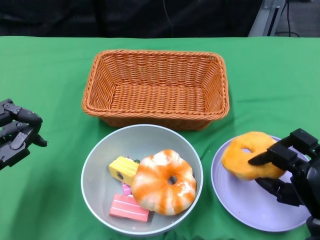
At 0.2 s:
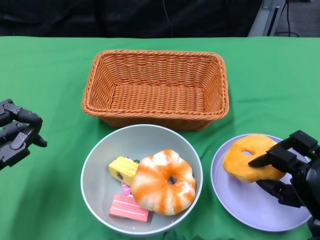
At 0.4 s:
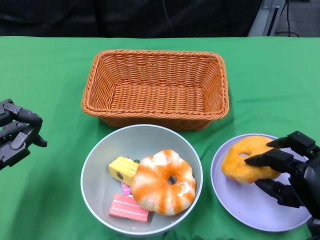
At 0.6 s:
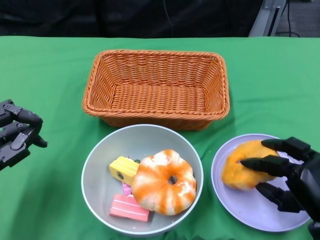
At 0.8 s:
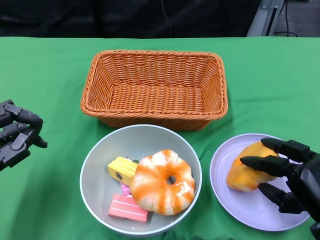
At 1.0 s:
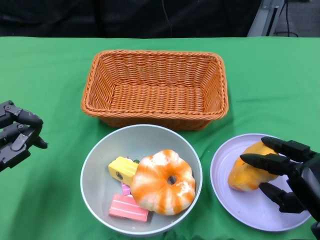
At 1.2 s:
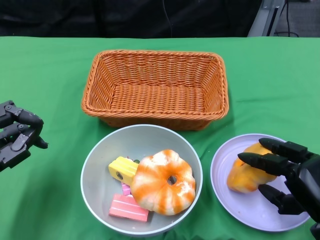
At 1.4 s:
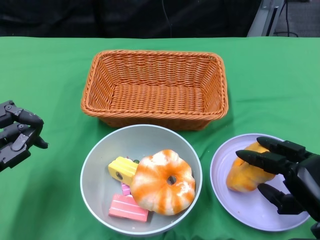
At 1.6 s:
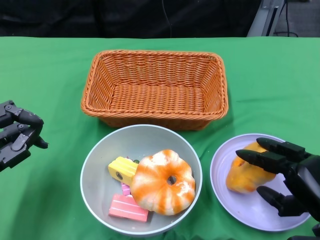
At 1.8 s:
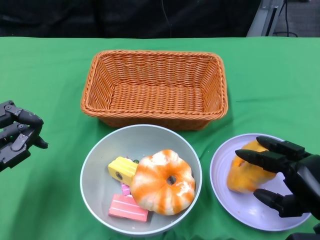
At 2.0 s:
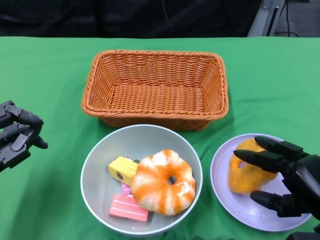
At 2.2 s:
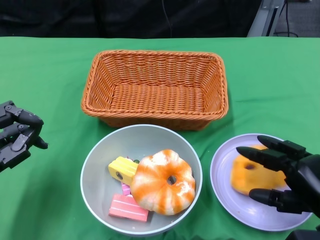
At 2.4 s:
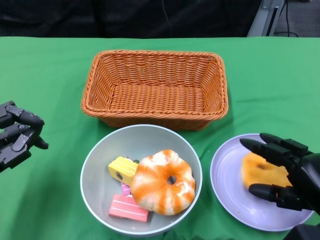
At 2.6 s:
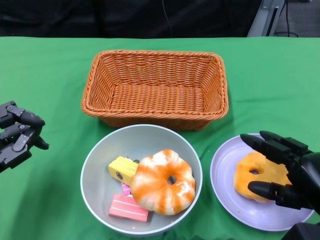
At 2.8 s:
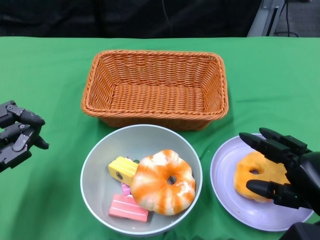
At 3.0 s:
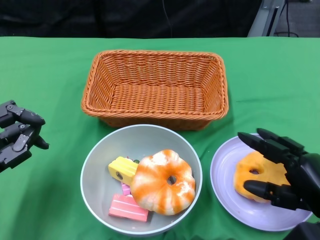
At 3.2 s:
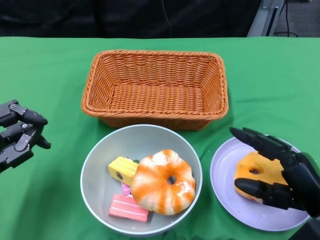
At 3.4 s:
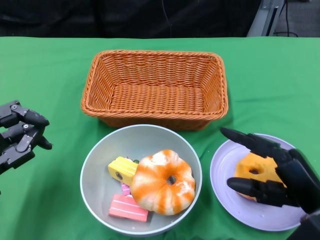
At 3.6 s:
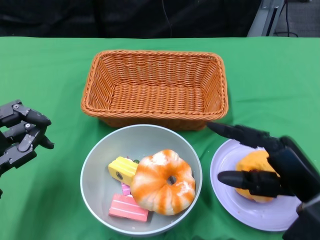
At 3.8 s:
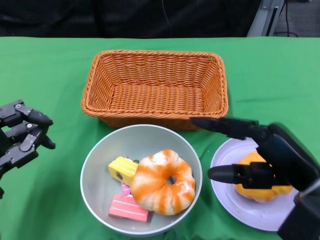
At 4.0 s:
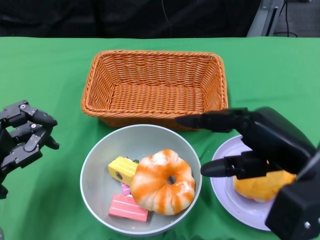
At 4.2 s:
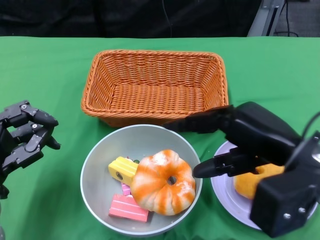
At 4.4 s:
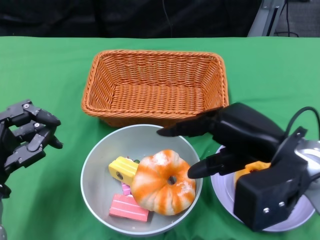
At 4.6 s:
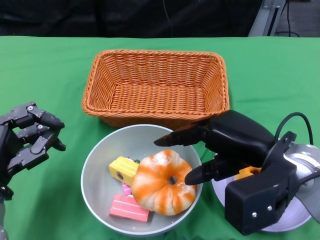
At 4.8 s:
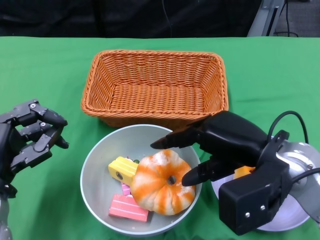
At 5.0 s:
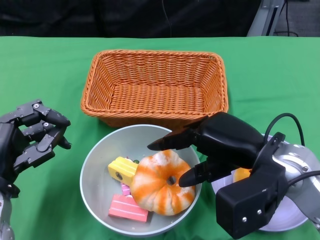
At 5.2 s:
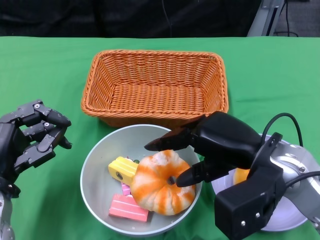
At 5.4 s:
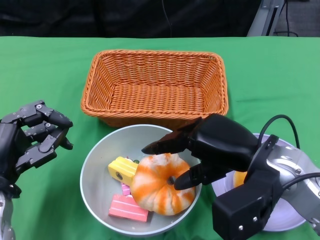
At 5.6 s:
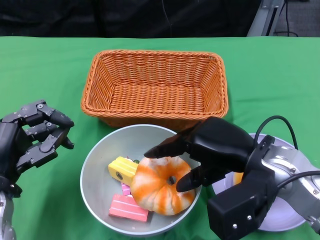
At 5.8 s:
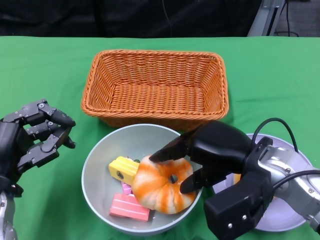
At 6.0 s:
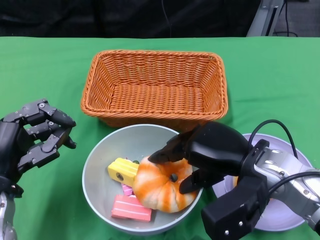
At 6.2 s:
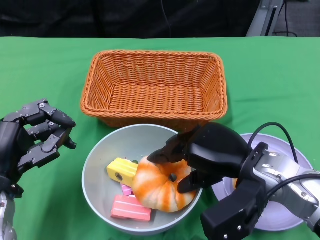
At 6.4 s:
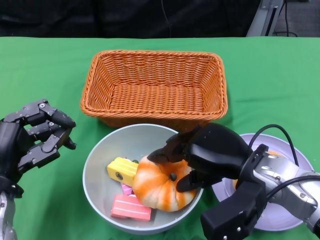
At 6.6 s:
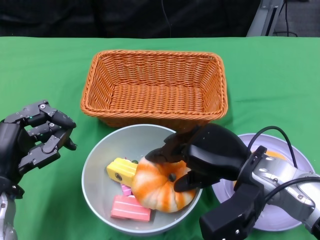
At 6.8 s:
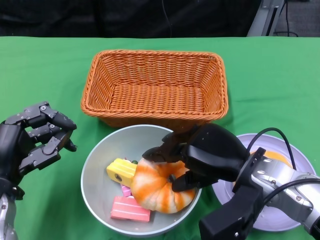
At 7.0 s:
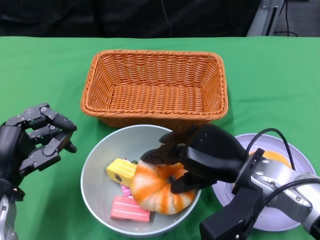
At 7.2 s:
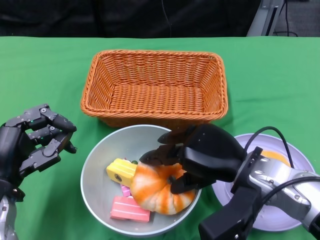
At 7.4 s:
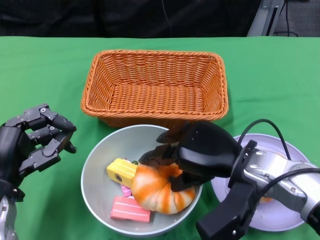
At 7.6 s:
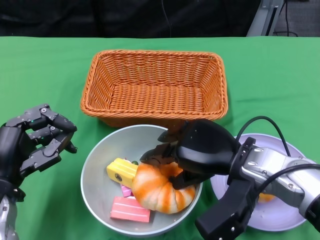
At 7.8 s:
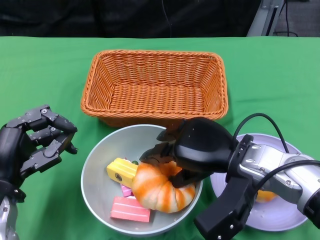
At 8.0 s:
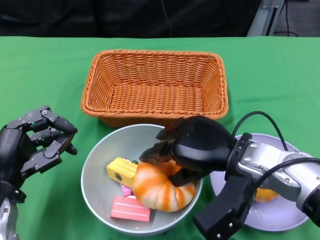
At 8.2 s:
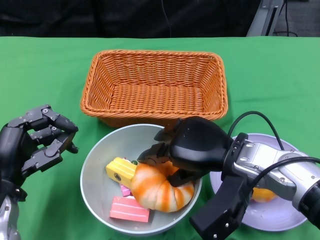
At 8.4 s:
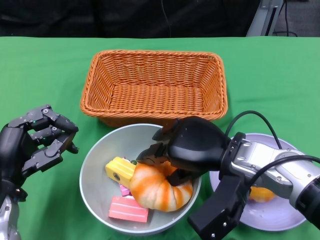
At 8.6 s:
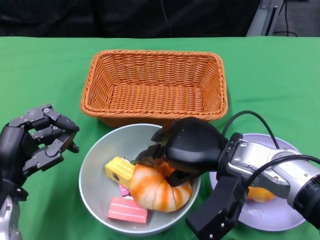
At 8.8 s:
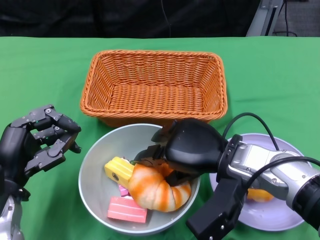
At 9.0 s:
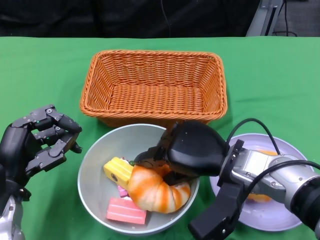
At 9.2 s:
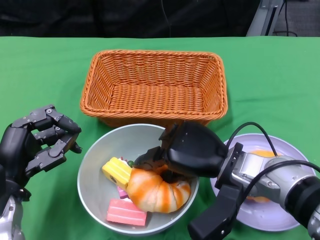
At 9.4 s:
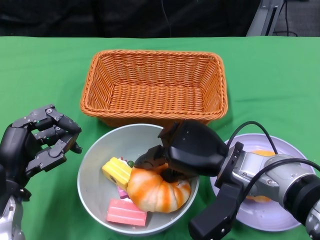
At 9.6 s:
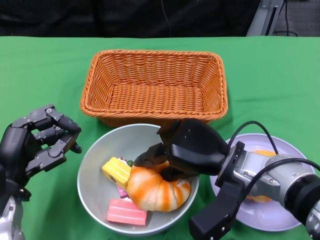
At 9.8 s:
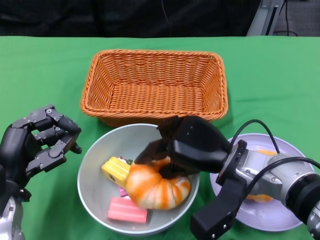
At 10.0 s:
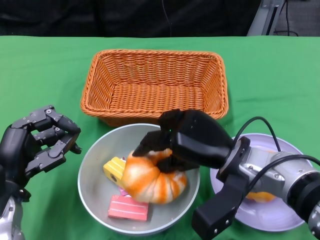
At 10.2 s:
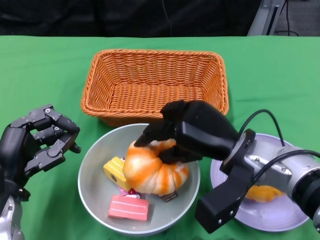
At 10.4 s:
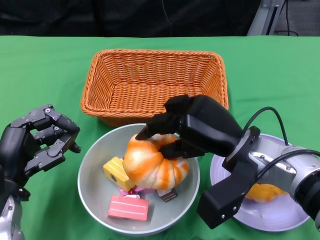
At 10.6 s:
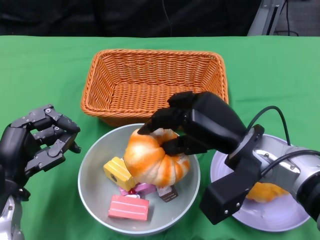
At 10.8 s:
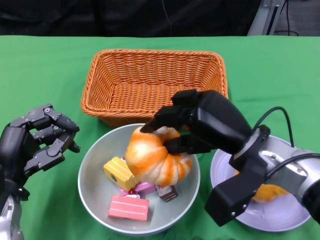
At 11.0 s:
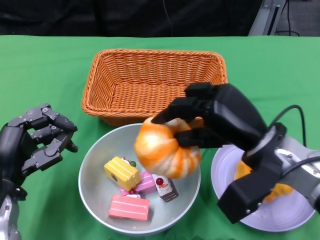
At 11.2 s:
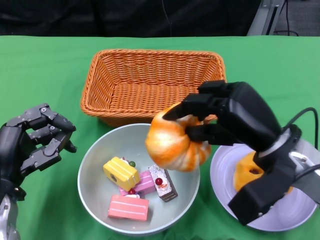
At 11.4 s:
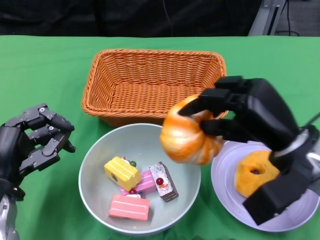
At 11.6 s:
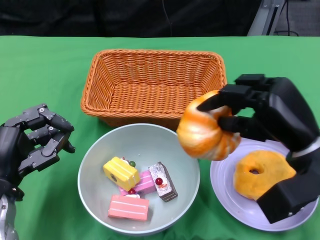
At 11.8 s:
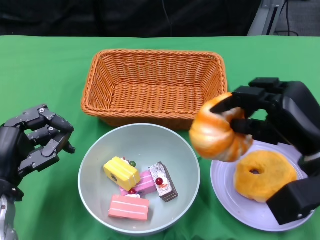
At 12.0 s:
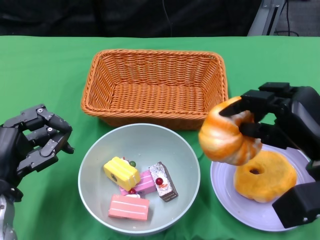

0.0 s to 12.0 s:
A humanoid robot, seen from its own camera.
Step, 0.0 to 2.6 s: Pick up the bread with the right gripper and place it on the plate.
1.6 to 3.0 s: The hands make only small movements.
3.0 to 4.4 s: The right hand is displaced upward and to the left by approximately 15 cm.
4.4 to 6.0 s: The right hand moves approximately 5 cm.
6.0 to 9.0 s: There are only small adjustments of the hands.
10.4 to 12.0 s: The right hand moves to the right, roughly 10 cm.

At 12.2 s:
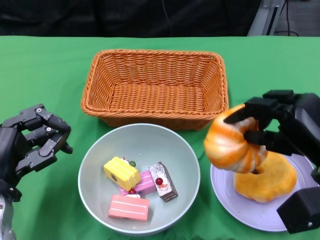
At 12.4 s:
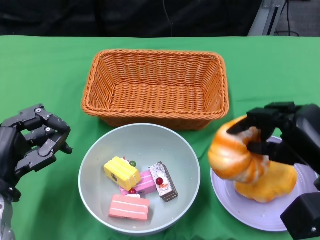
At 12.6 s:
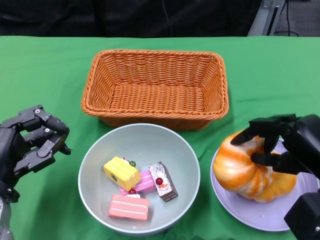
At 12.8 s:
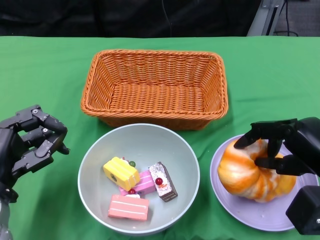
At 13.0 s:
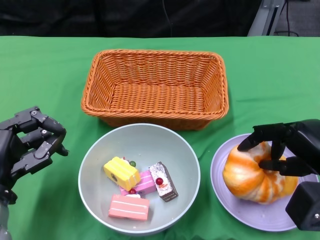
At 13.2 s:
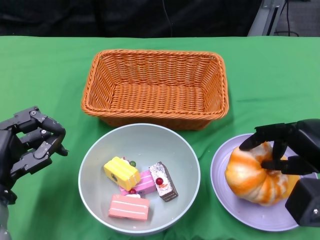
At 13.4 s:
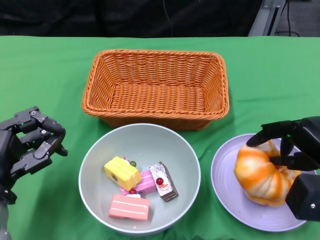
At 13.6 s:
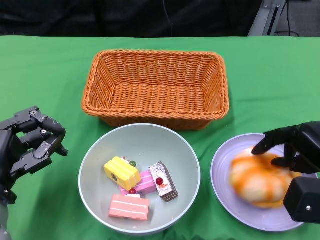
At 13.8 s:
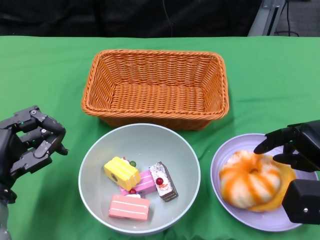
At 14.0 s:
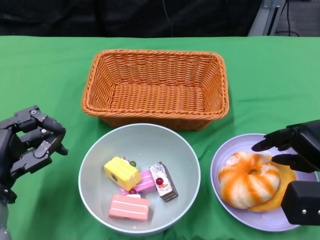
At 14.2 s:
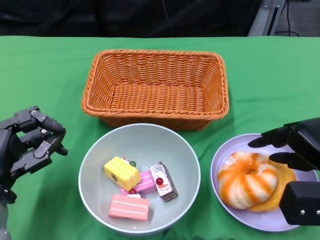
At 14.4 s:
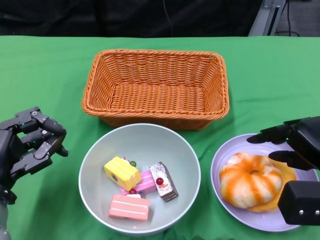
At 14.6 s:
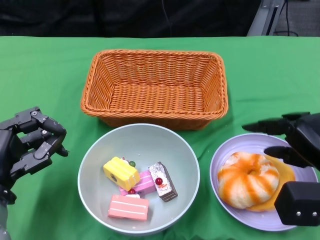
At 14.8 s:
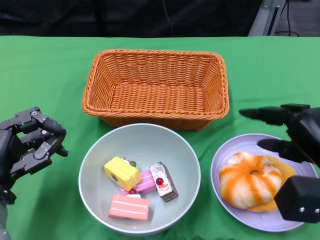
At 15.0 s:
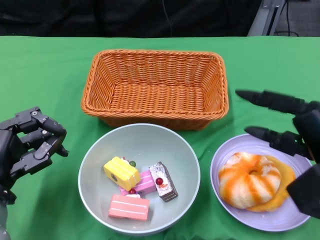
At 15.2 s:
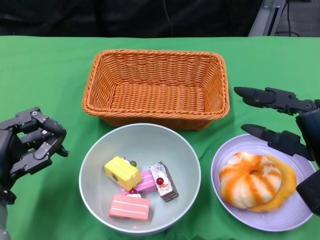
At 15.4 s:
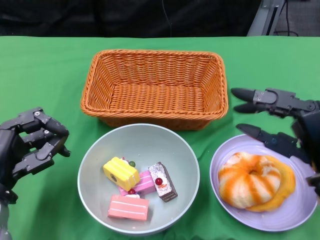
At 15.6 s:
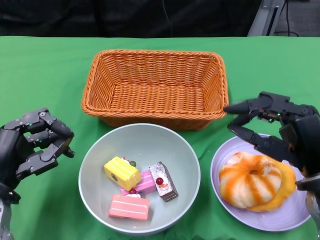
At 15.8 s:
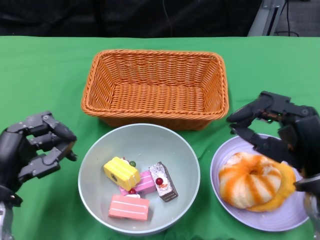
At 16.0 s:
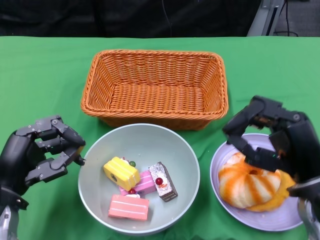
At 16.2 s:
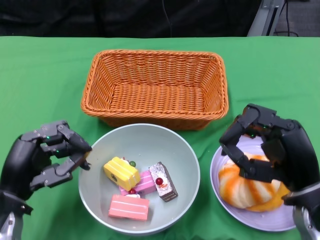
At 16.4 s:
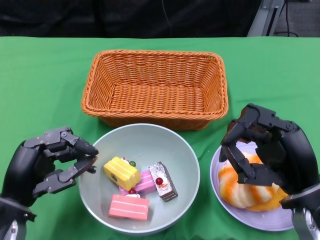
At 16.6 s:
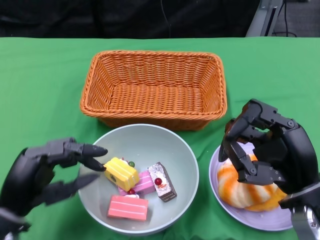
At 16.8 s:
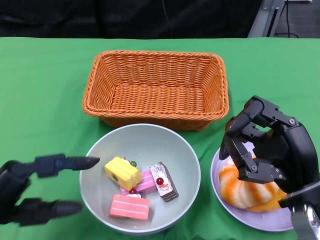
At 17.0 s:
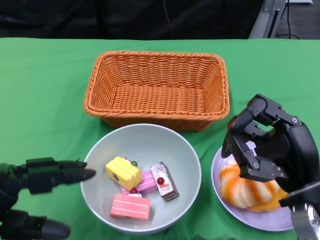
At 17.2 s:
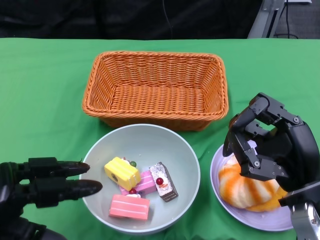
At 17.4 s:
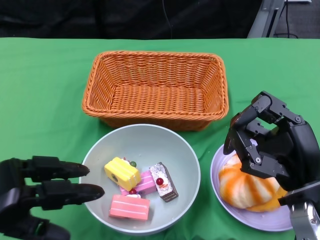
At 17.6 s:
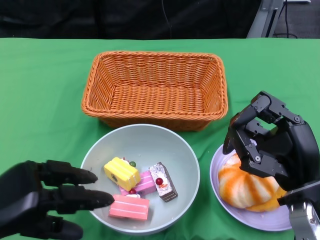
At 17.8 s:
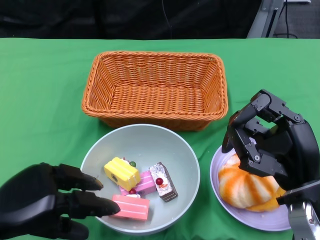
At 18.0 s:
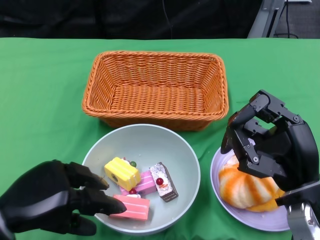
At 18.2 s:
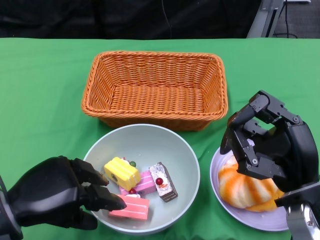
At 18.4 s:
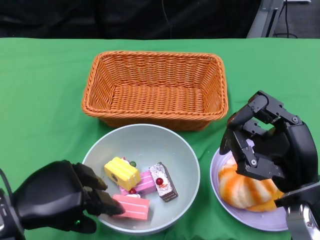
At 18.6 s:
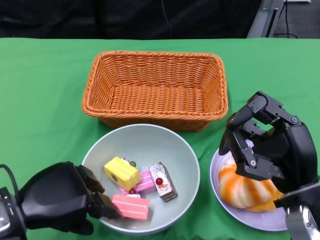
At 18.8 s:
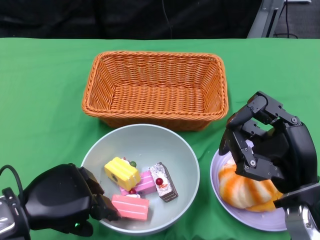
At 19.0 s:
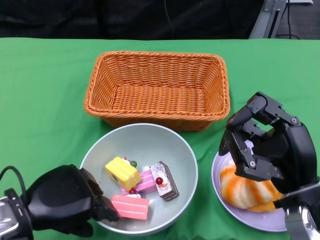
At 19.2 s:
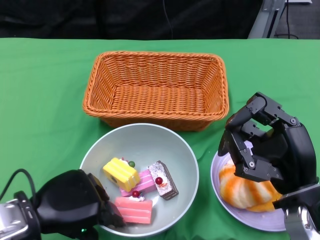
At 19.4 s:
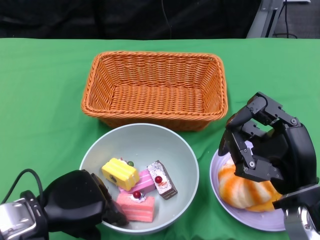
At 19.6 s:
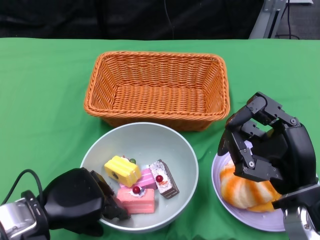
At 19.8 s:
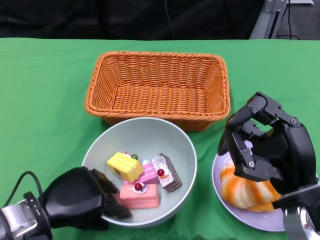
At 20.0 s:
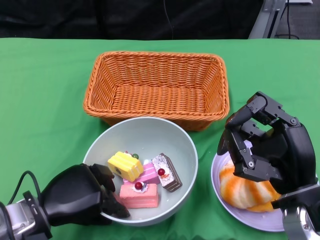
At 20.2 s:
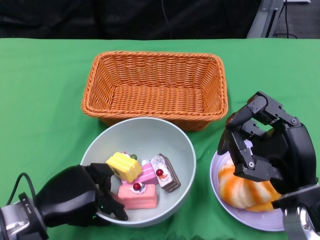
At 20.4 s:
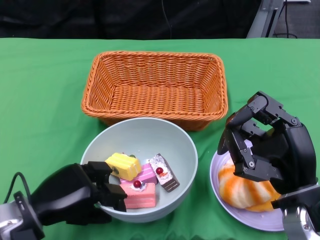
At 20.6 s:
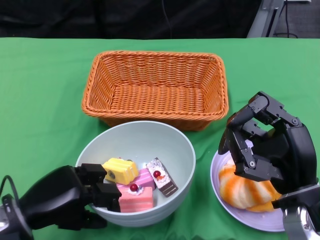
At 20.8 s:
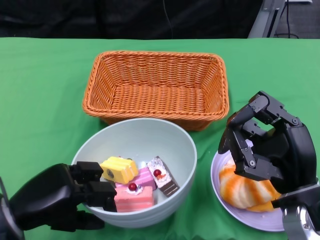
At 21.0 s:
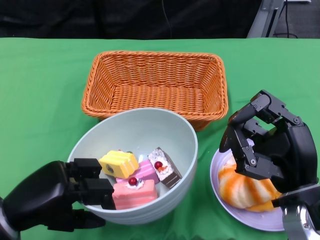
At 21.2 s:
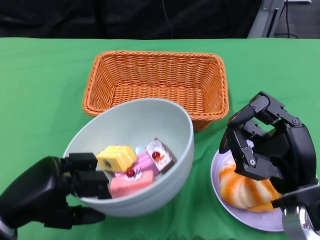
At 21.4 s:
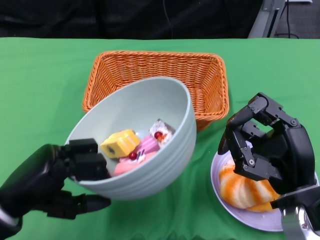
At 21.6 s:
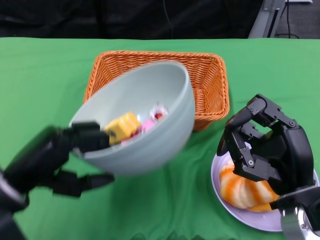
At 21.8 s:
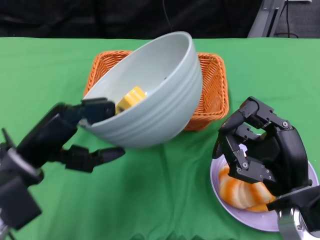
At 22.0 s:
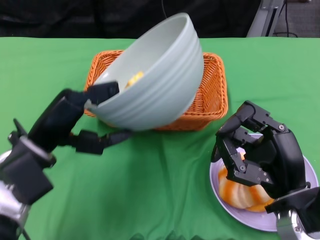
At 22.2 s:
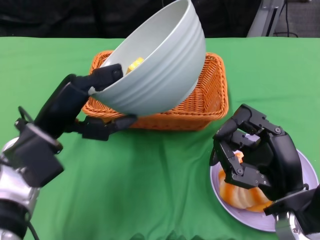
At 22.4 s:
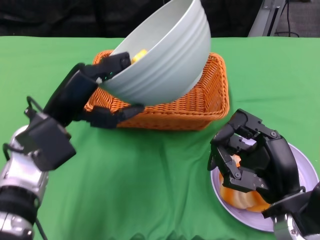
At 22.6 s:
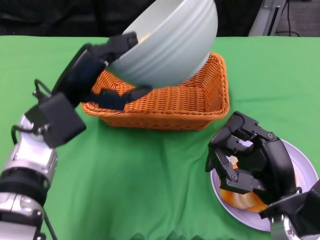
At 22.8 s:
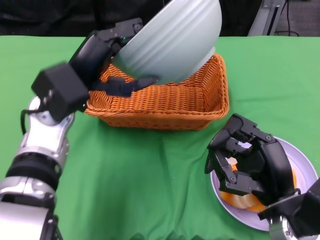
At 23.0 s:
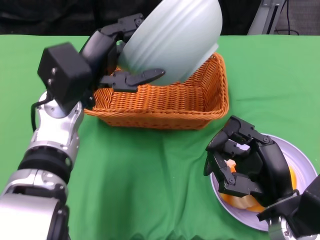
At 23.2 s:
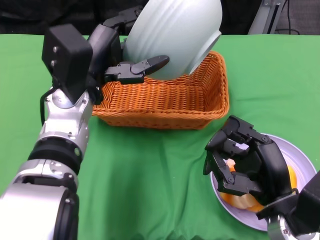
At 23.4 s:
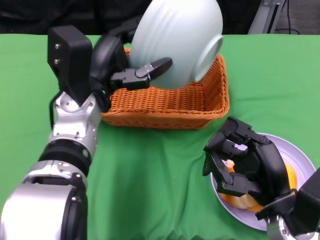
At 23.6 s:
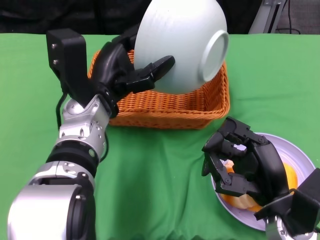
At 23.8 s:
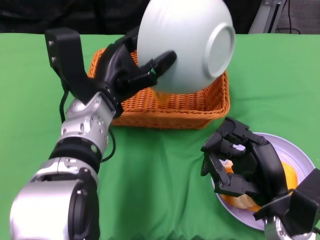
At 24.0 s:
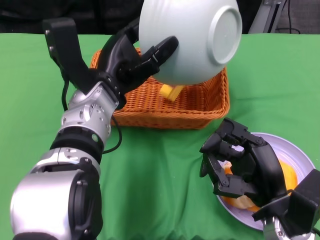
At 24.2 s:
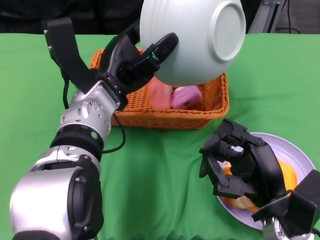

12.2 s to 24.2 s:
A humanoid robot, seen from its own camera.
Step, 14.0 to 20.4 s: Grasp the bowl with the left gripper.
13.8 to 15.2 s: The right hand shifts by roughly 5 cm.
18.2 to 19.8 s: The left hand changes place by approximately 5 cm.
19.8 to 21.2 s: The left hand shifts by approximately 5 cm.
21.2 to 22.6 s: The left hand is displaced forward, to the right and upward by roughly 15 cm.
22.6 to 24.2 s: The left hand heads to the right, covering some 5 cm.
